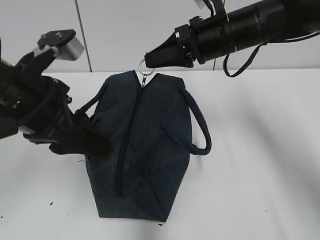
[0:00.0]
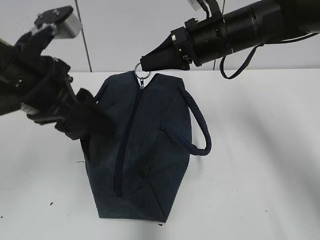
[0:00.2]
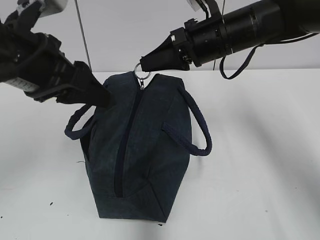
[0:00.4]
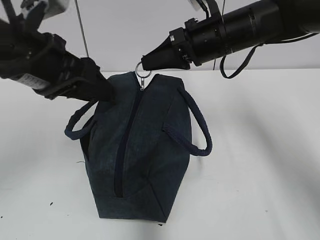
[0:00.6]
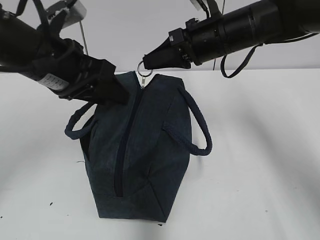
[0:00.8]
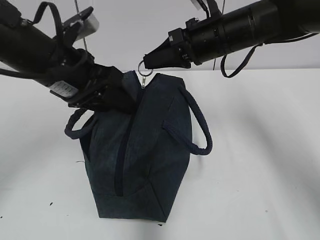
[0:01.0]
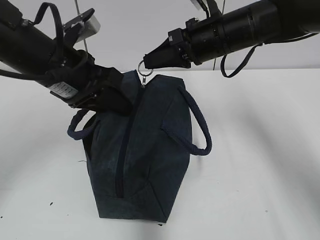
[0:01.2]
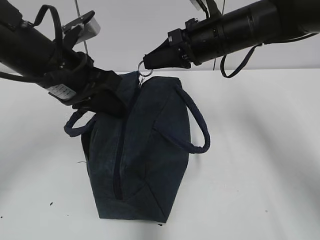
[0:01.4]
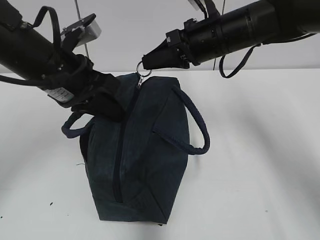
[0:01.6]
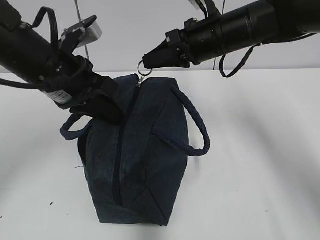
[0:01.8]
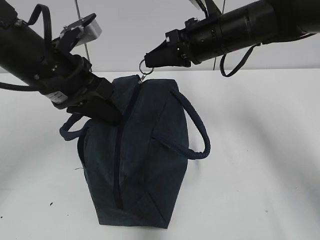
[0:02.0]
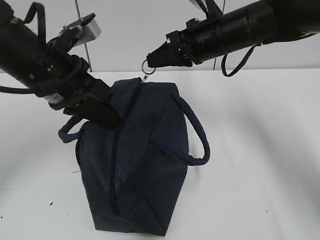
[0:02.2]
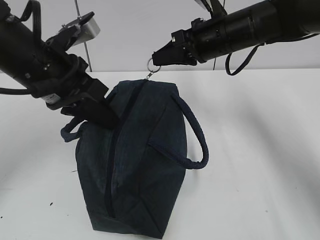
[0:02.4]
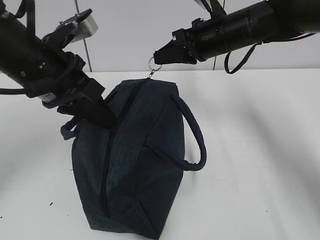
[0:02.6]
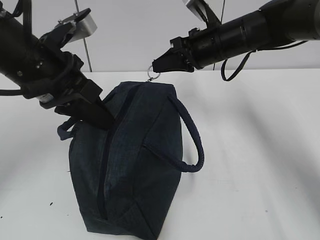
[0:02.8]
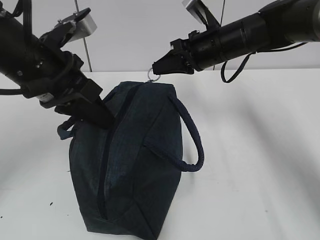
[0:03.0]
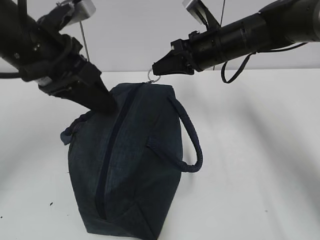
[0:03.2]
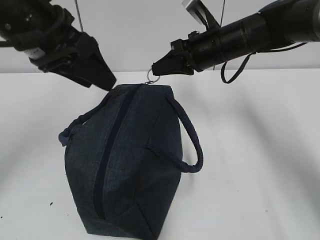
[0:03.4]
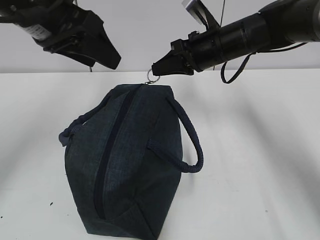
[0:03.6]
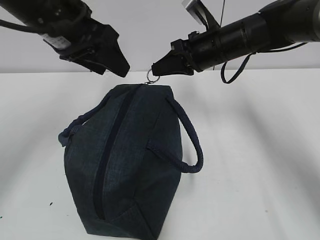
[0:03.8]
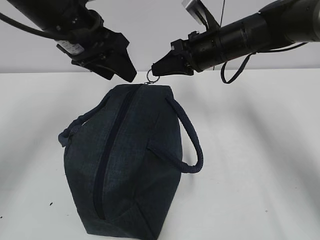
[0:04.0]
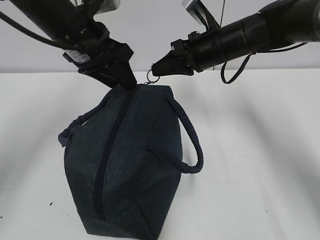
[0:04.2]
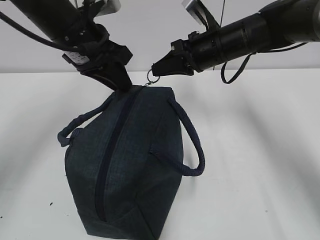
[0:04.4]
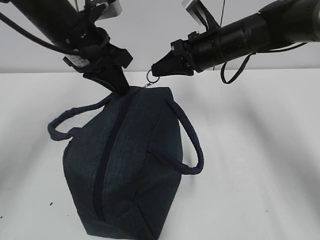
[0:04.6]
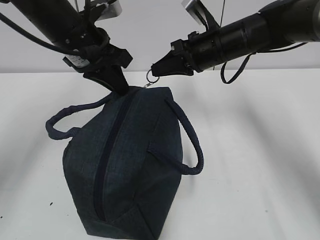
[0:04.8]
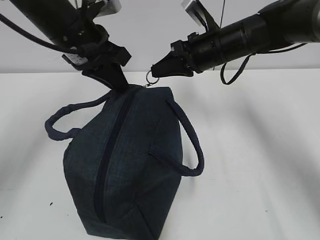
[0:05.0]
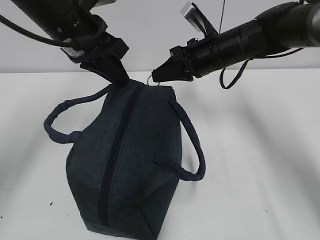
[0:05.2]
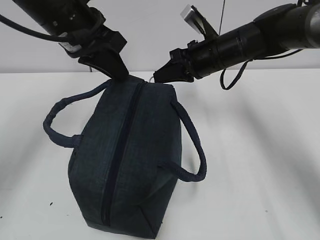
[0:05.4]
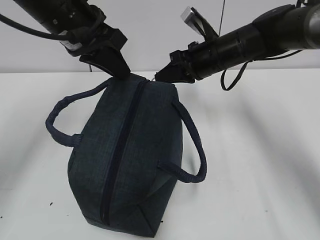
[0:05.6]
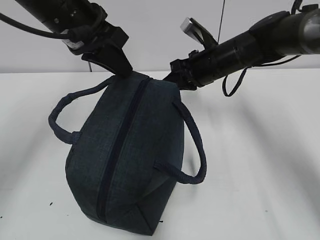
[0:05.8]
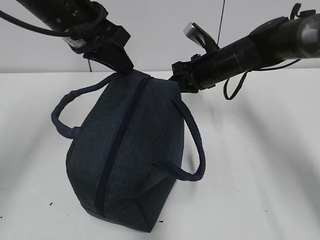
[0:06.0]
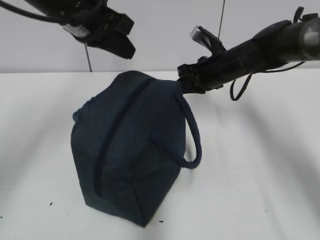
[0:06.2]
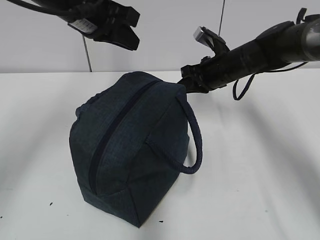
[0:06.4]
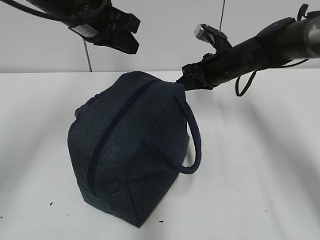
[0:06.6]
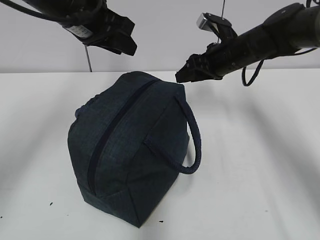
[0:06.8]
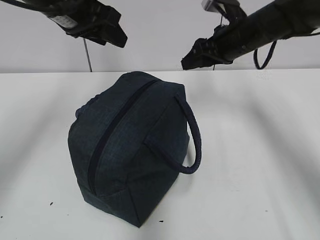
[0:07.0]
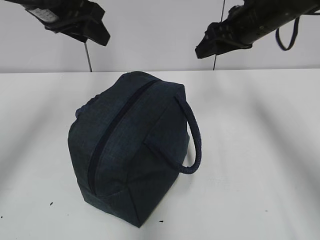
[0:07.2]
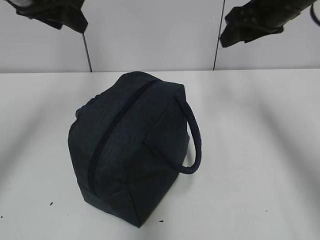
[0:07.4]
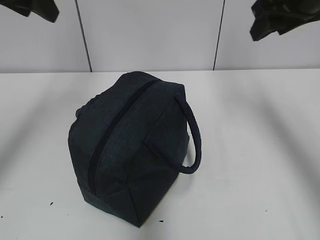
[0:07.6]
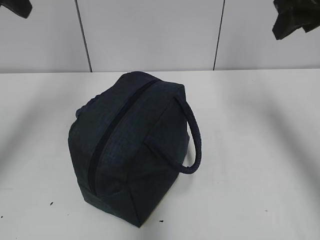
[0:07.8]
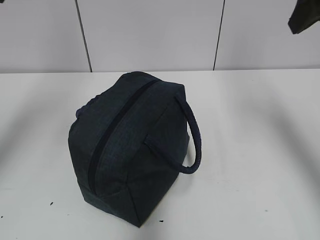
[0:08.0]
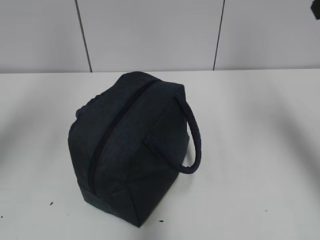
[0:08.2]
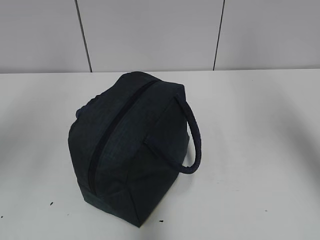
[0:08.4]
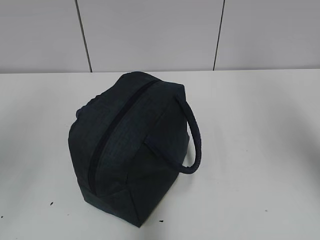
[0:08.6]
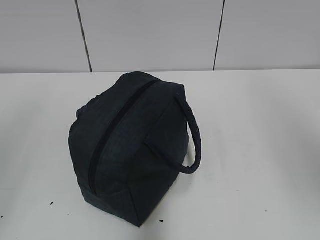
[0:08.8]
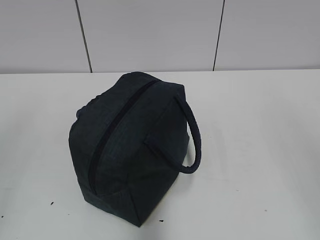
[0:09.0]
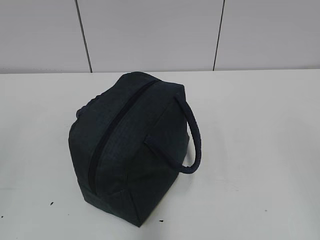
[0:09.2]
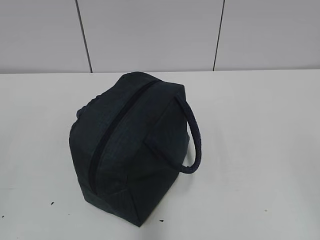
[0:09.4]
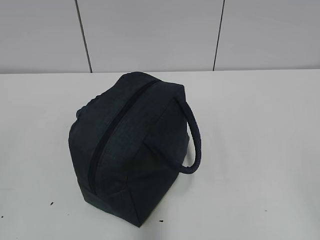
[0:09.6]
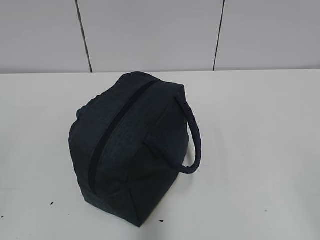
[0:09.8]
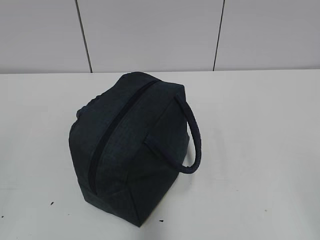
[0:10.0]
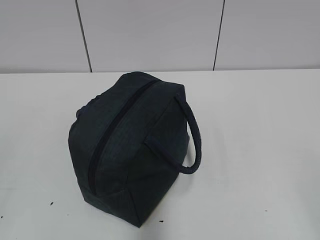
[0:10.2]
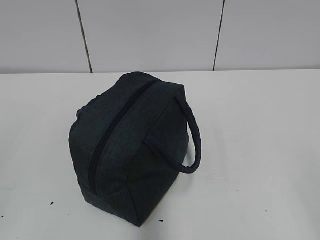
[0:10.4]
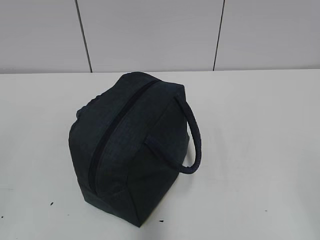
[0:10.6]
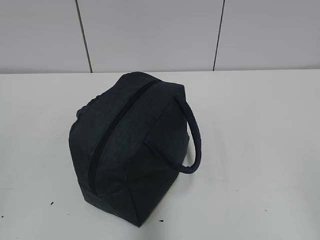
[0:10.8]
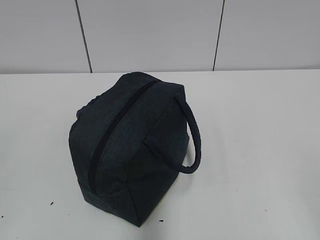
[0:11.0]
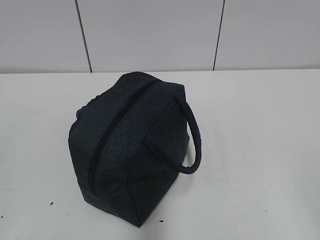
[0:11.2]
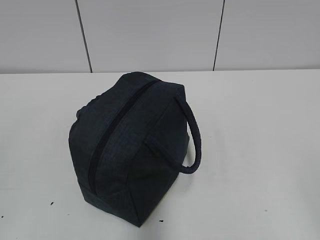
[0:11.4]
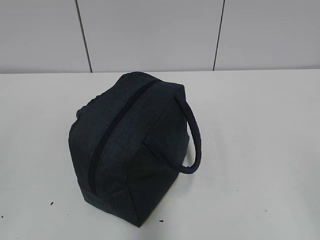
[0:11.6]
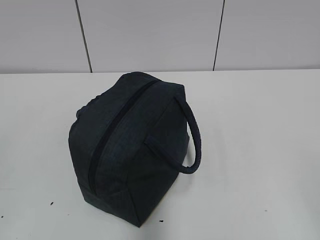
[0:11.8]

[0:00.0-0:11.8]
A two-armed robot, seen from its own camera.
0:00.0 to 0:01.4: The left gripper heads forward, covering about 5 cm, and closes up.
0:01.4 to 0:03.0: The right gripper changes place by roughly 5 cm.
0:03.0 to 0:04.4: The left gripper is displaced forward by some 10 cm, and opens and closes again.
0:04.4 to 0:06.0: The right gripper travels downward by approximately 5 cm.
0:06.0 to 0:07.4: The right gripper shifts about 15 cm upward and to the right, and opens its fingers, while the left gripper shifts some 10 cm to the left and upward, and opens up.
0:07.4 to 0:08.8: Both grippers travel together backward, roughly 30 cm.
0:08.8 to 0:10.4: The right gripper goes roughly 20 cm downward and backward.
